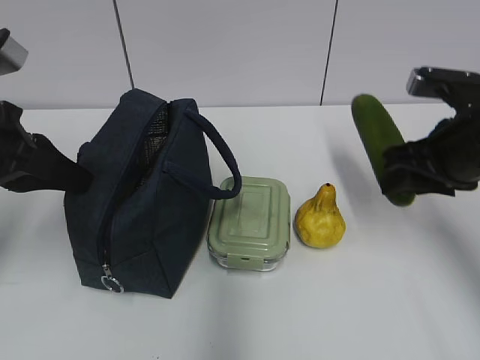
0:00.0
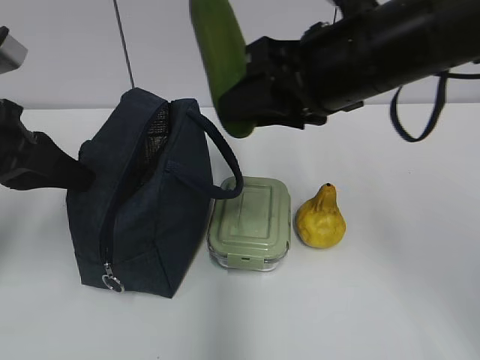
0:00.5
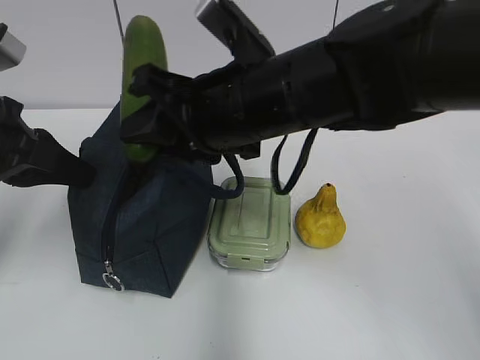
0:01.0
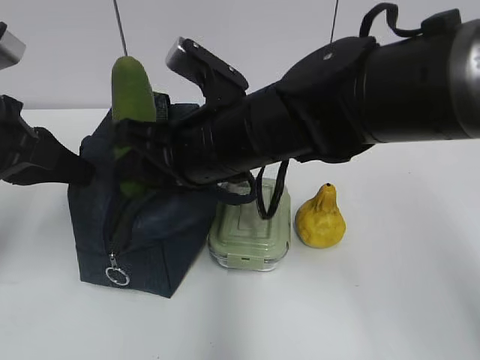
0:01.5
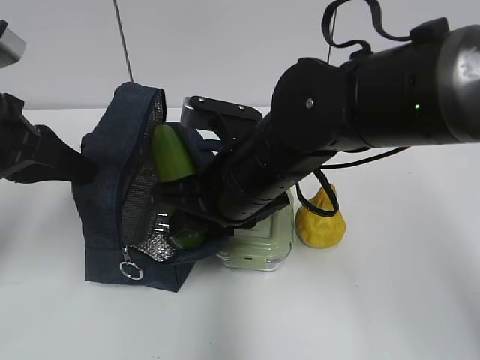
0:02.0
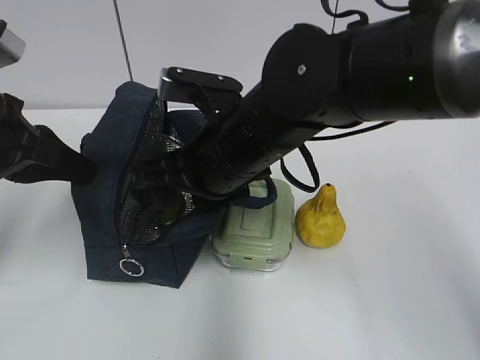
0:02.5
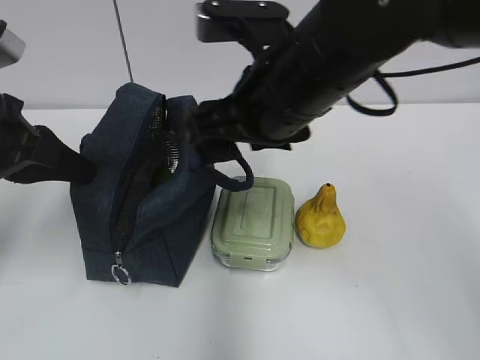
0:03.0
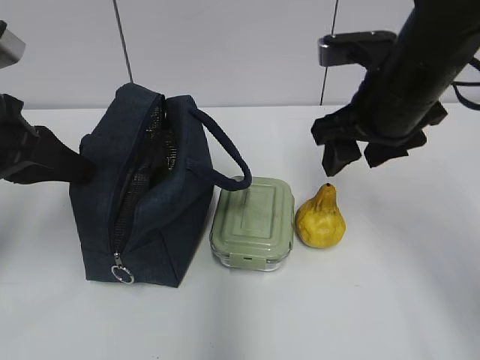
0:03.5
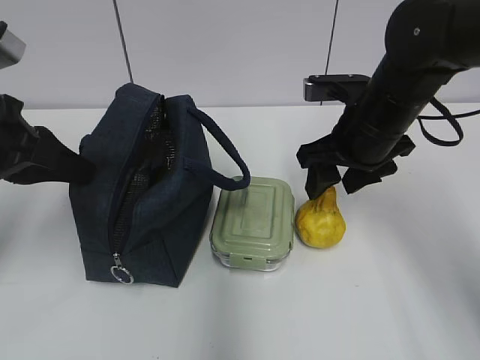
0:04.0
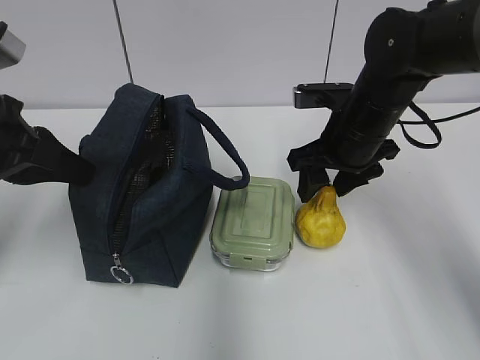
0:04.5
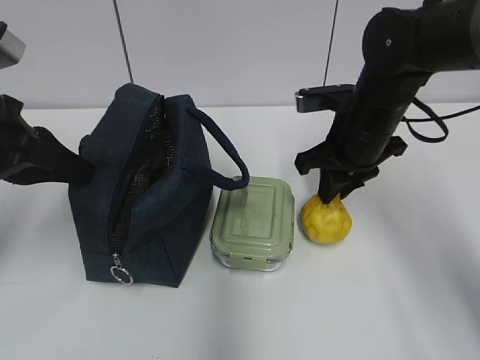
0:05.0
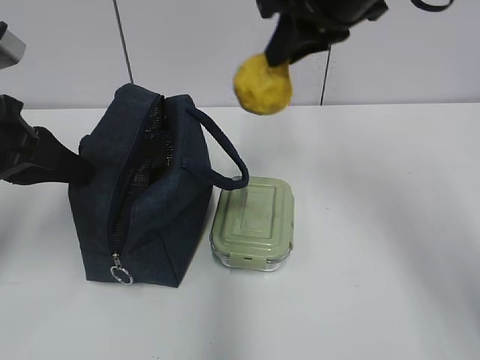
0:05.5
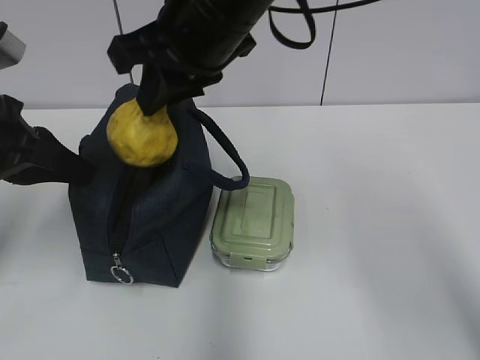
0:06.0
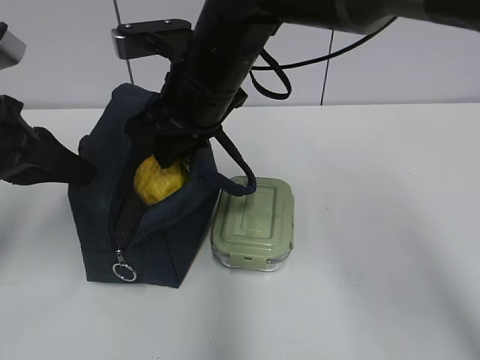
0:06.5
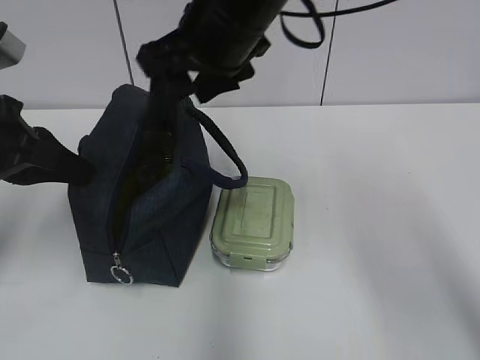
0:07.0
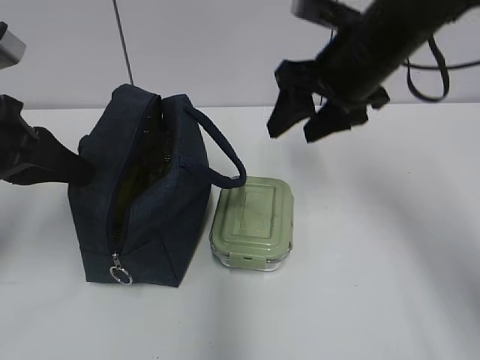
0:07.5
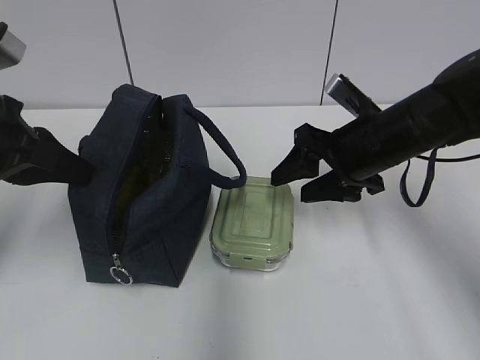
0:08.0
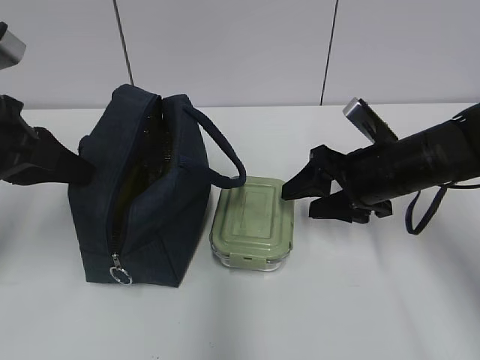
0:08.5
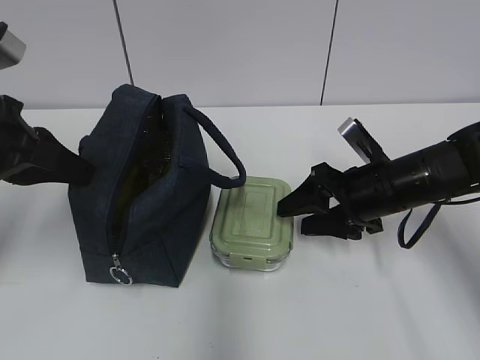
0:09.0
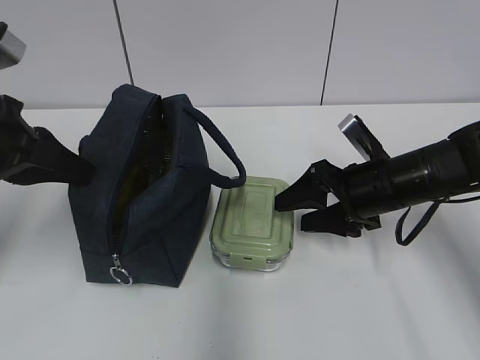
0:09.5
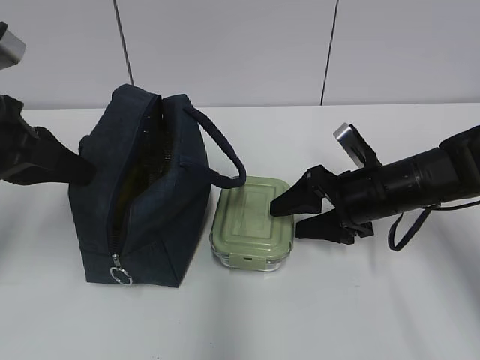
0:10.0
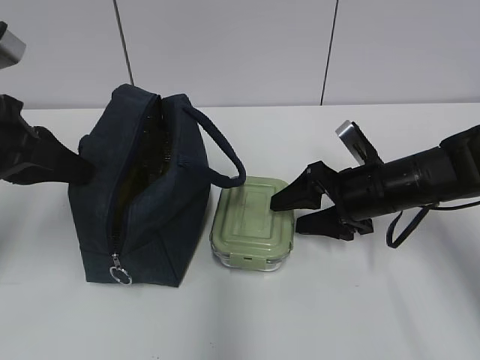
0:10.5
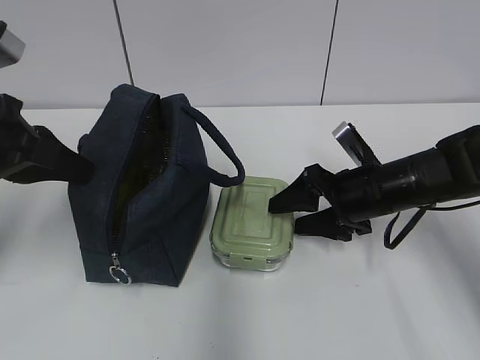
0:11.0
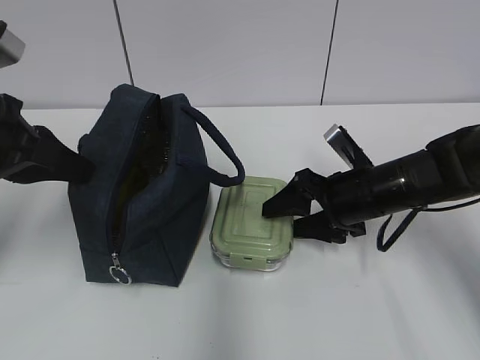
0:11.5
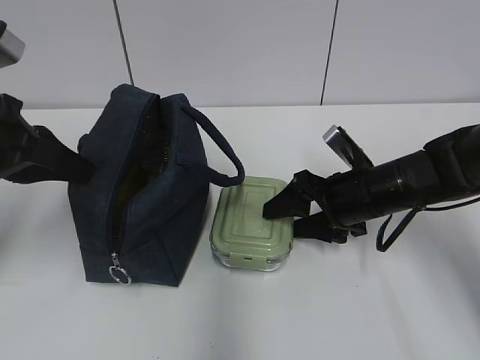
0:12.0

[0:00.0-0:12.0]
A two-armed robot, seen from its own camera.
0:00.0 to 0:02.0: The right gripper moves to the left, about 20 cm.
0:02.0 to 0:04.0: The right gripper goes about 15 cm to the right and forward, and opens.
0:04.0 to 0:06.0: The right gripper travels to the left and upward by approximately 20 cm, and closes.
0:06.0 to 0:08.0: The right gripper goes roughly 20 cm to the right and downward, and opens up.
0:08.0 to 0:10.0: The right gripper goes roughly 5 cm downward.
0:10.0 to 0:12.0: The grippers move only a little.

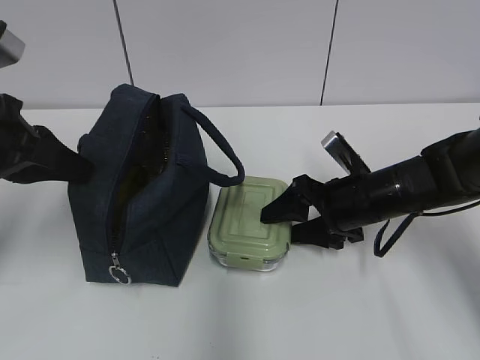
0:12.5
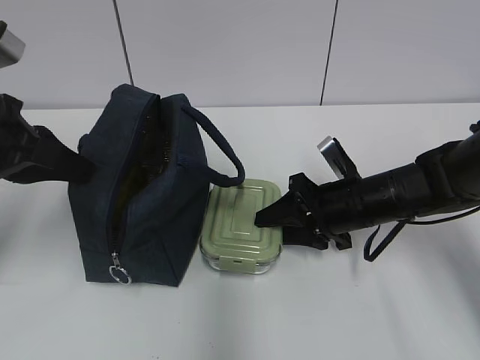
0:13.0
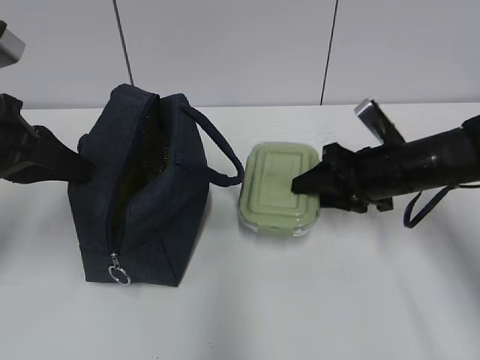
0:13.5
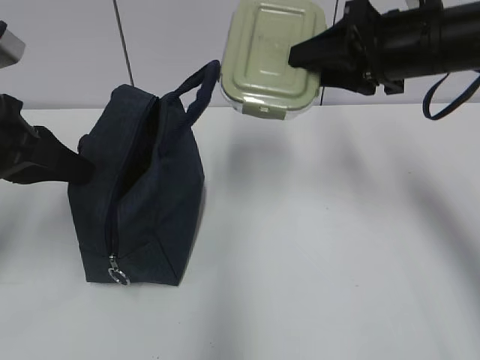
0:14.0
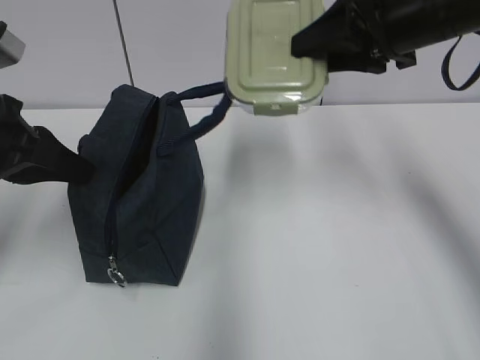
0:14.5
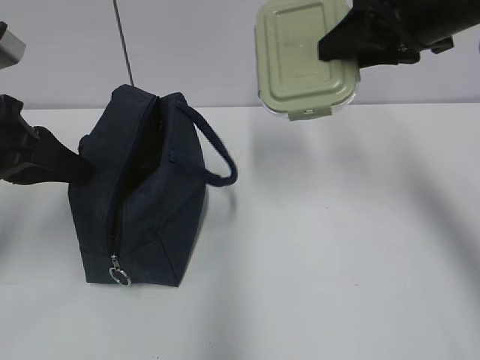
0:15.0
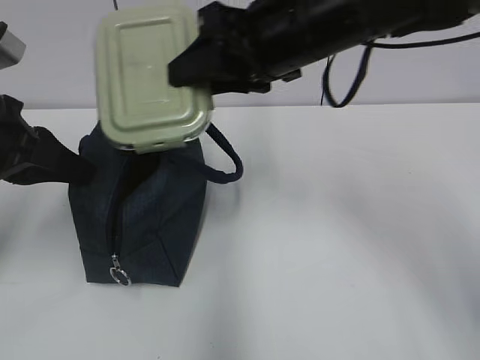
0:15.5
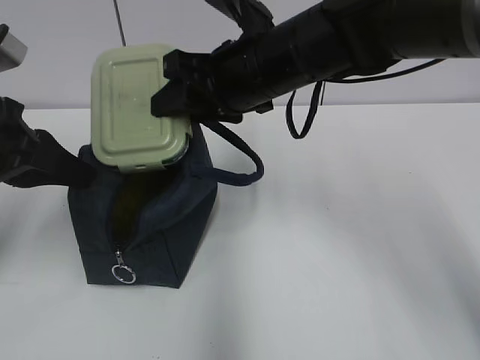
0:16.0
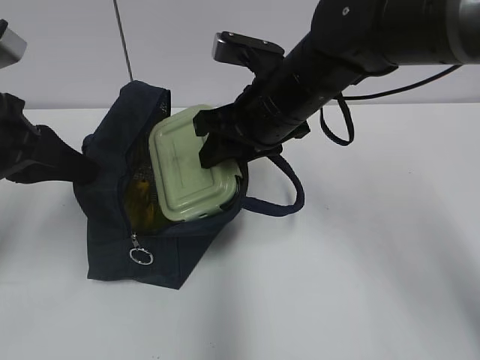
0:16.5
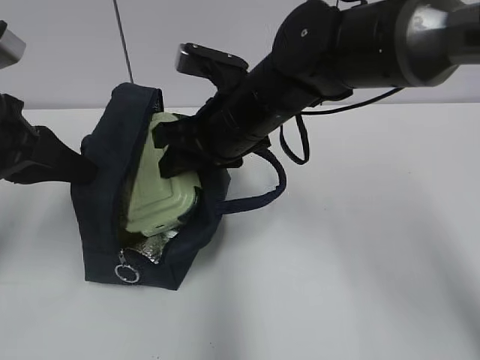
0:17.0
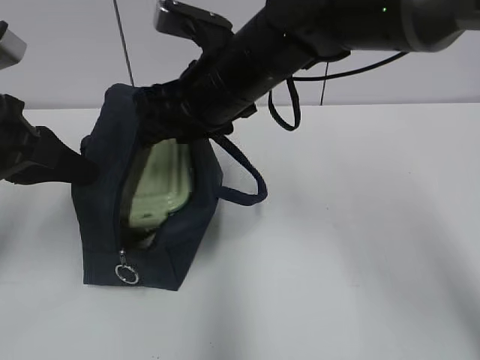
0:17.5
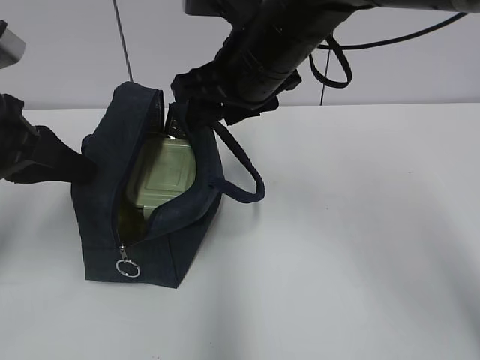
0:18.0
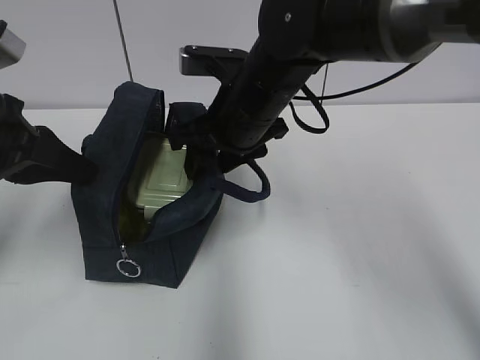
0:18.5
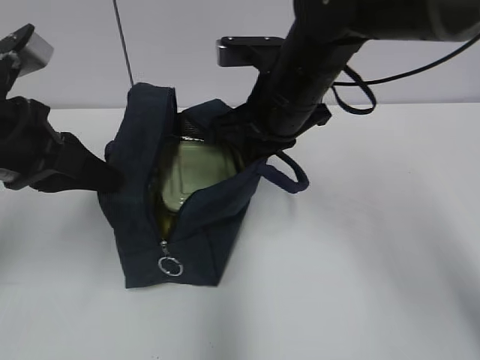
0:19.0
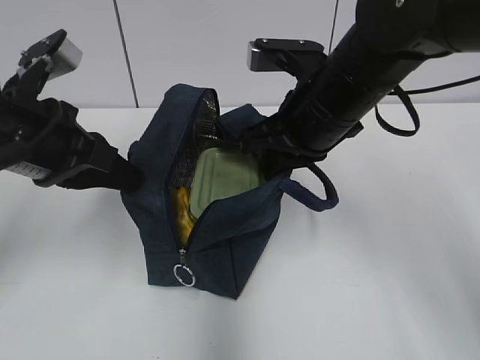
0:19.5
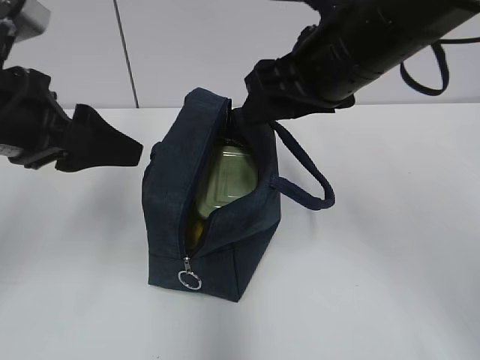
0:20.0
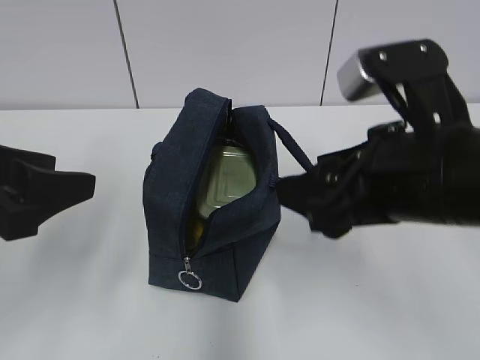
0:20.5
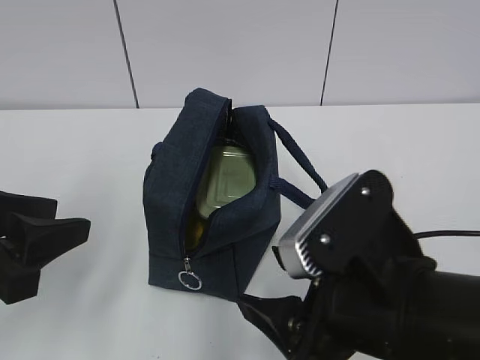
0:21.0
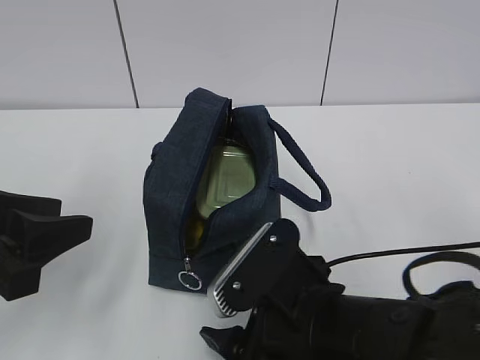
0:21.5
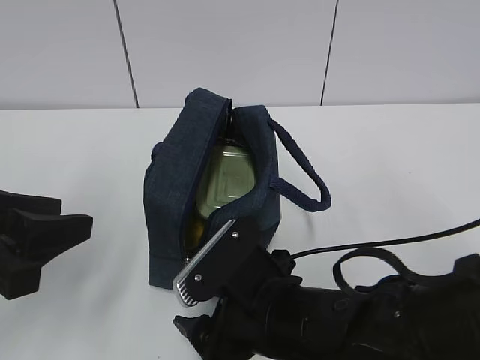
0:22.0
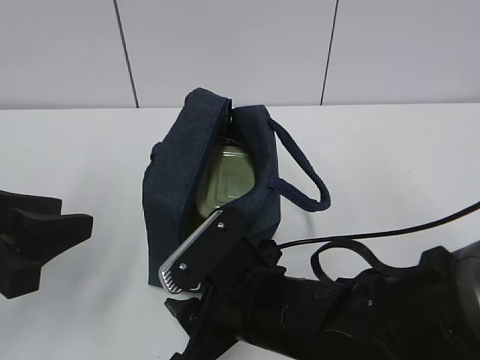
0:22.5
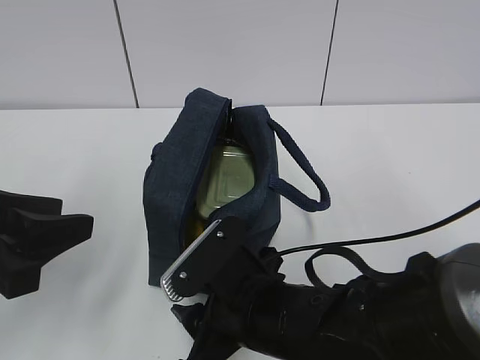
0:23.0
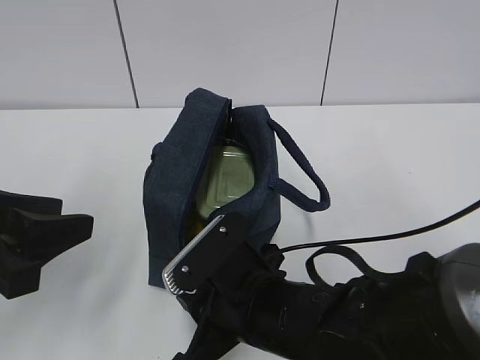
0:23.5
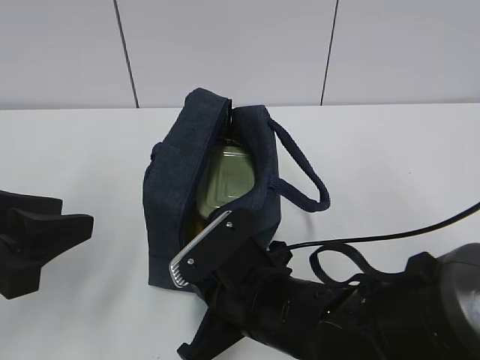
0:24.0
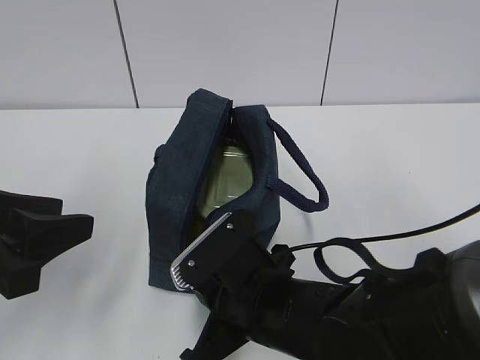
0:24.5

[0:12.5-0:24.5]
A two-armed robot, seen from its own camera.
0:12.5 to 0:14.5: The right gripper travels upward by roughly 20 cm, and closes.
0:14.5 to 0:16.5: The right gripper travels to the left and downward by approximately 15 cm.
0:18.5 to 0:20.5: The left gripper heads backward, covering some 10 cm, and opens up; the right gripper goes roughly 20 cm backward and to the right, and closes, then opens again.
0:20.5 to 0:22.5: The right gripper moves downward and to the left, about 20 cm.
0:22.5 to 0:24.5: The right gripper closes up.

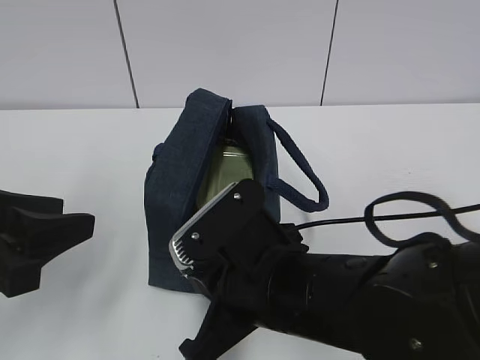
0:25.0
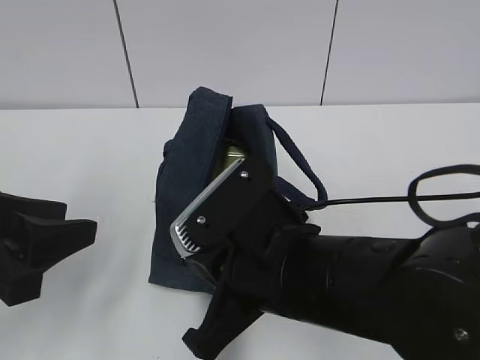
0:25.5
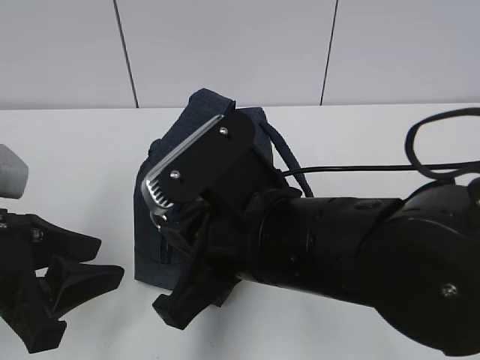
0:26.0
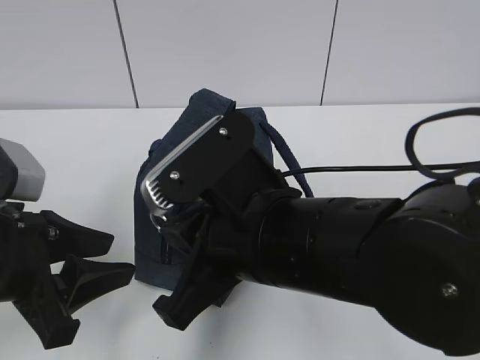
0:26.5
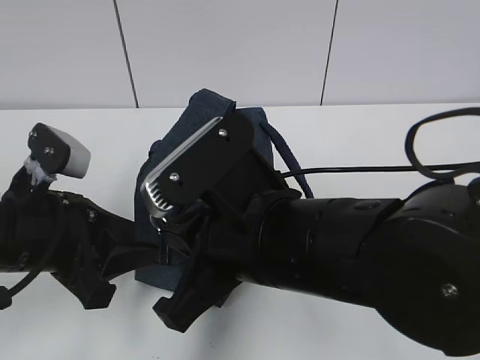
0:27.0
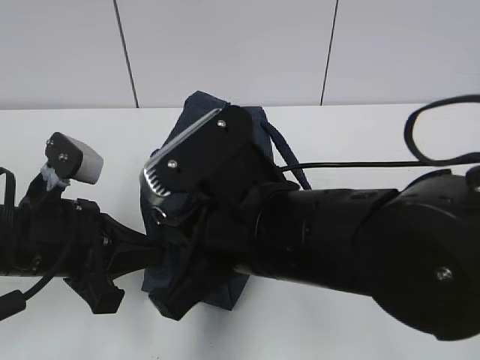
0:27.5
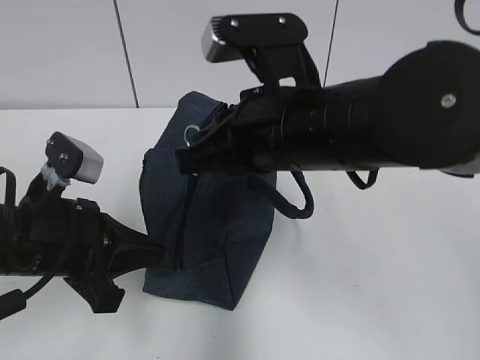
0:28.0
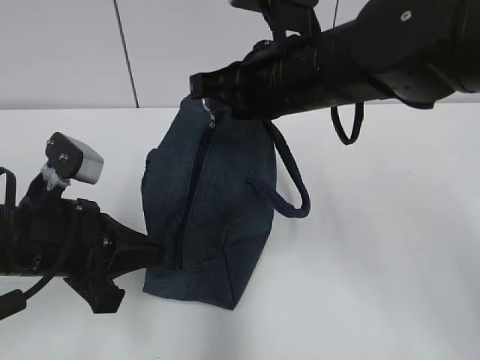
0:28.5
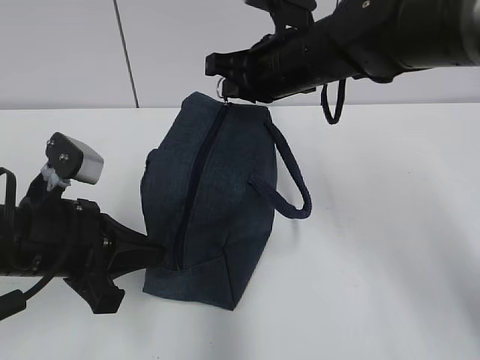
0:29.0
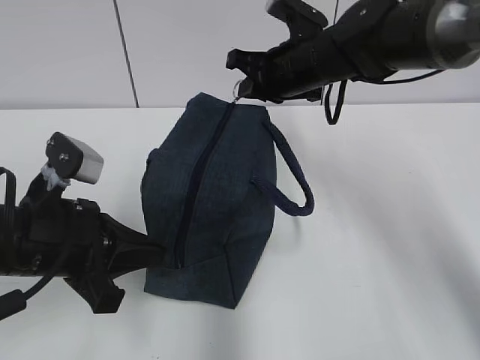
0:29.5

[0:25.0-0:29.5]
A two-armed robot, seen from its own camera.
0:25.0 to 0:27.0: The left gripper travels forward by about 5 cm. The right gripper travels upward by some 5 cm.
0:27.0 to 0:29.5: The left gripper closes its fingers. The right gripper shifts roughly 25 cm forward.
